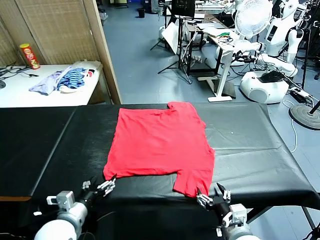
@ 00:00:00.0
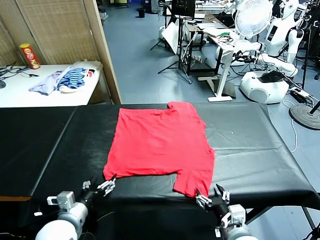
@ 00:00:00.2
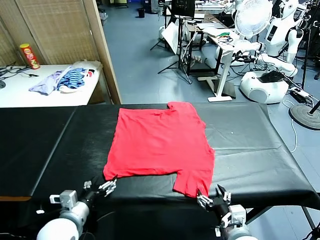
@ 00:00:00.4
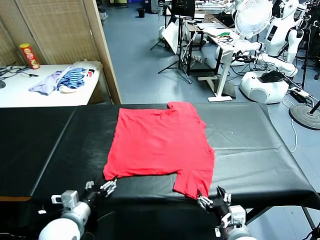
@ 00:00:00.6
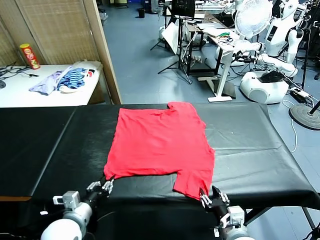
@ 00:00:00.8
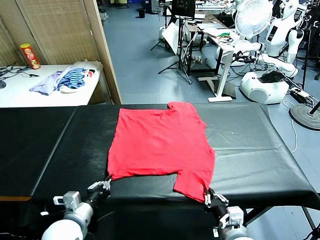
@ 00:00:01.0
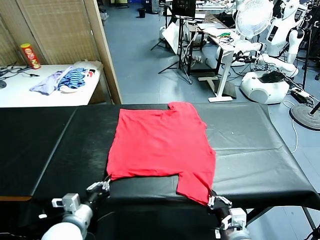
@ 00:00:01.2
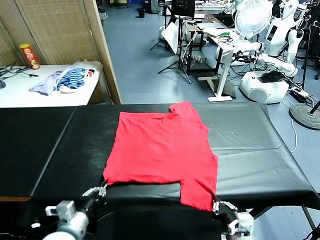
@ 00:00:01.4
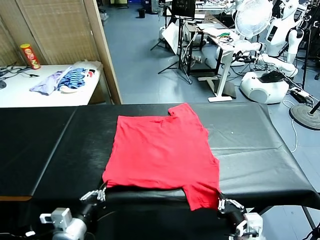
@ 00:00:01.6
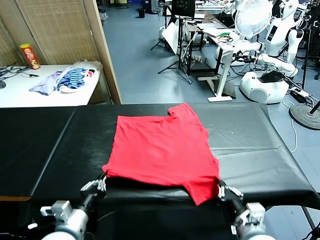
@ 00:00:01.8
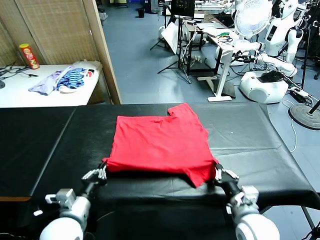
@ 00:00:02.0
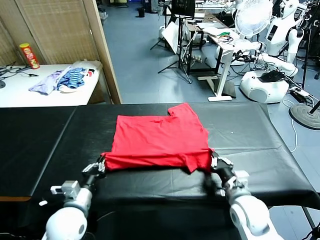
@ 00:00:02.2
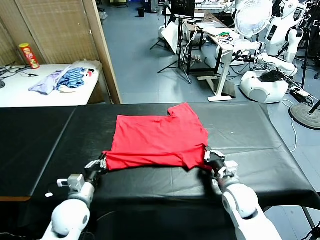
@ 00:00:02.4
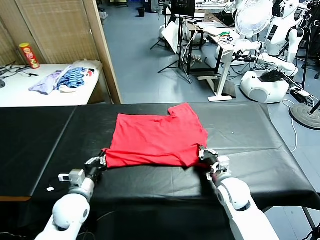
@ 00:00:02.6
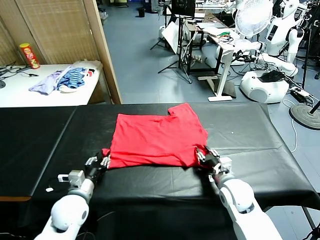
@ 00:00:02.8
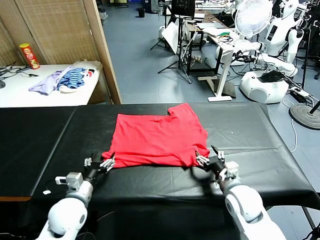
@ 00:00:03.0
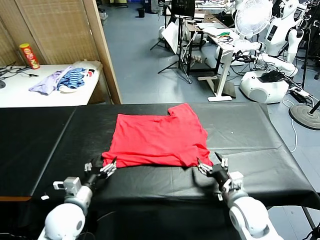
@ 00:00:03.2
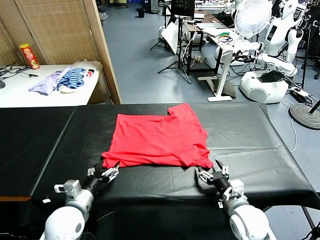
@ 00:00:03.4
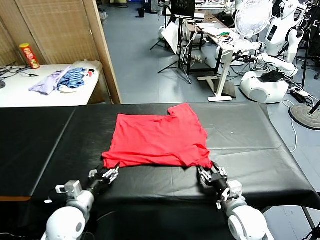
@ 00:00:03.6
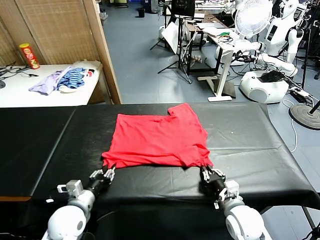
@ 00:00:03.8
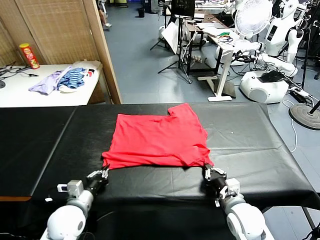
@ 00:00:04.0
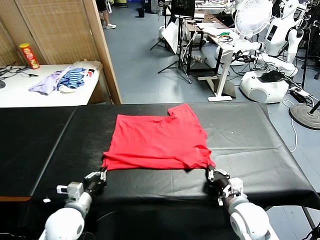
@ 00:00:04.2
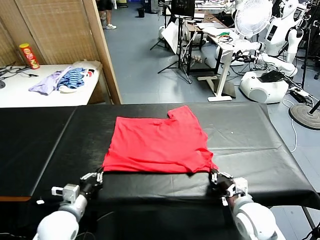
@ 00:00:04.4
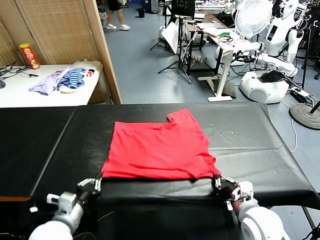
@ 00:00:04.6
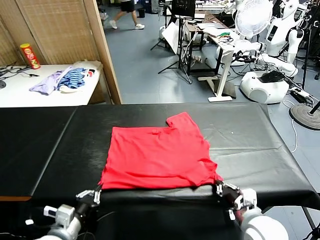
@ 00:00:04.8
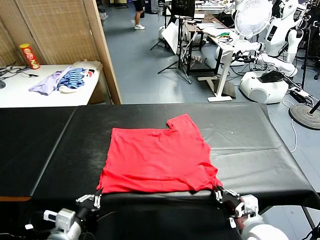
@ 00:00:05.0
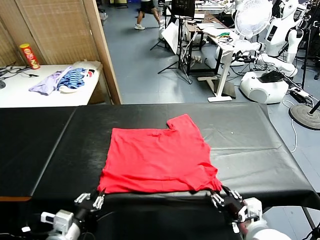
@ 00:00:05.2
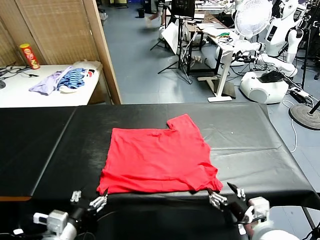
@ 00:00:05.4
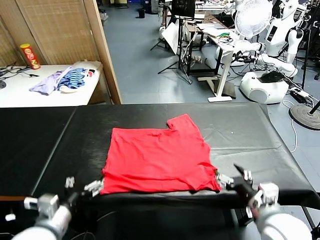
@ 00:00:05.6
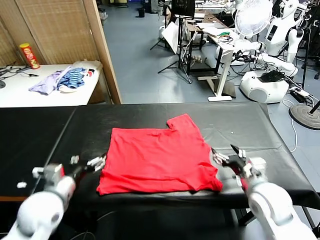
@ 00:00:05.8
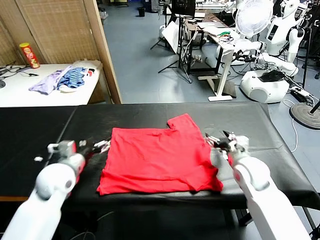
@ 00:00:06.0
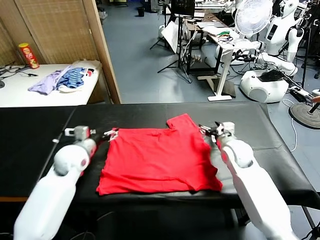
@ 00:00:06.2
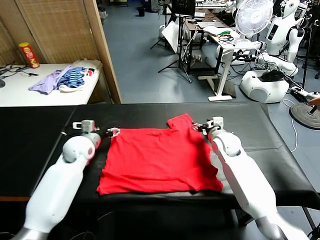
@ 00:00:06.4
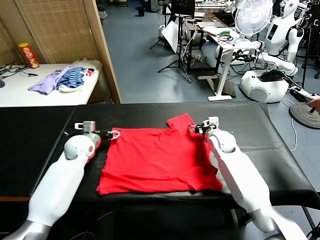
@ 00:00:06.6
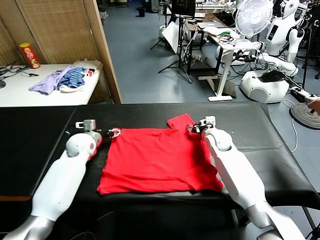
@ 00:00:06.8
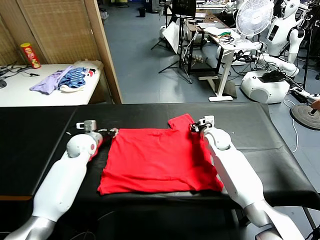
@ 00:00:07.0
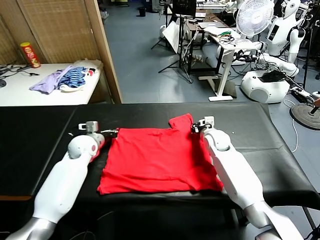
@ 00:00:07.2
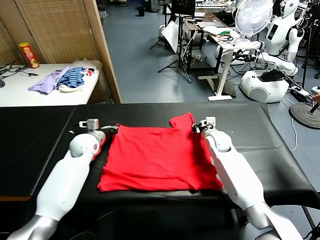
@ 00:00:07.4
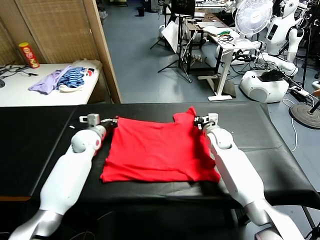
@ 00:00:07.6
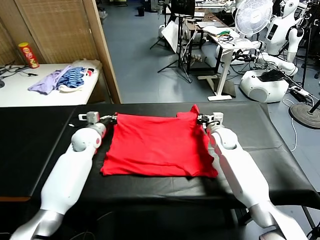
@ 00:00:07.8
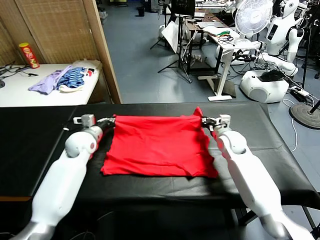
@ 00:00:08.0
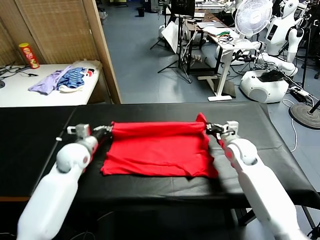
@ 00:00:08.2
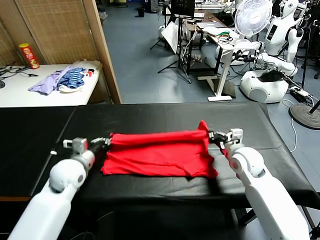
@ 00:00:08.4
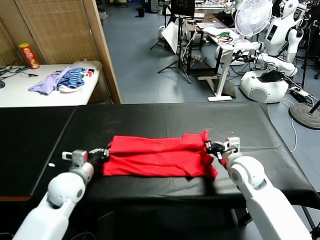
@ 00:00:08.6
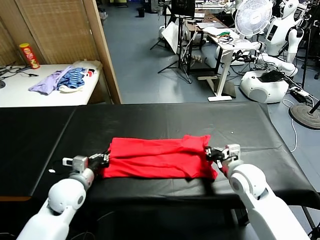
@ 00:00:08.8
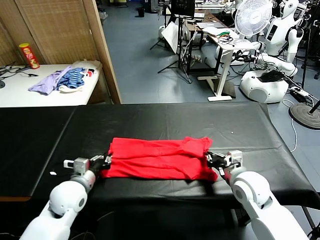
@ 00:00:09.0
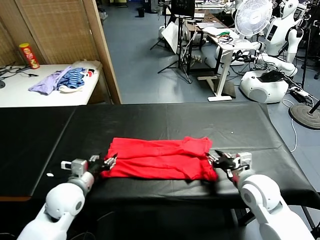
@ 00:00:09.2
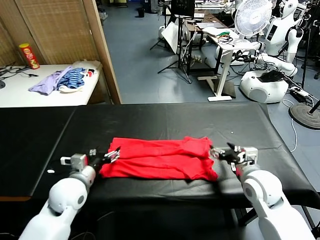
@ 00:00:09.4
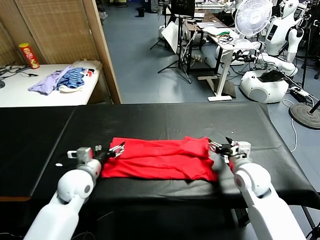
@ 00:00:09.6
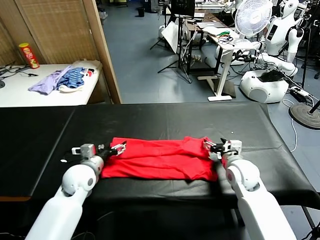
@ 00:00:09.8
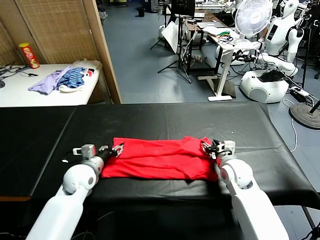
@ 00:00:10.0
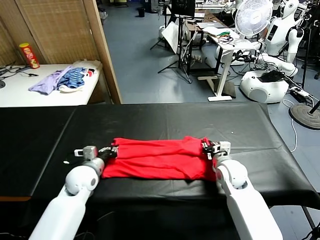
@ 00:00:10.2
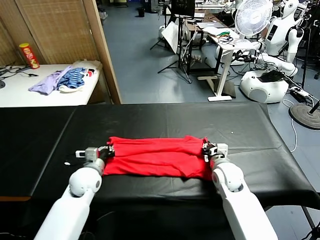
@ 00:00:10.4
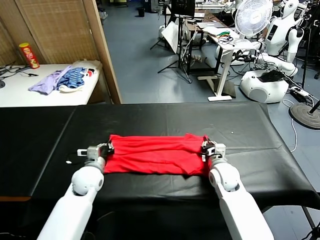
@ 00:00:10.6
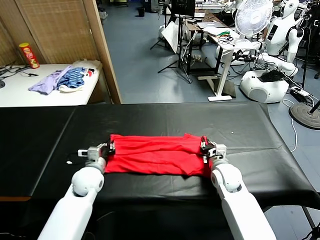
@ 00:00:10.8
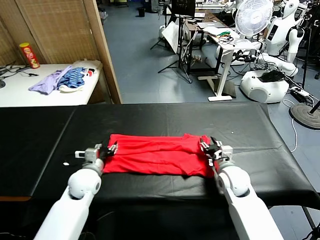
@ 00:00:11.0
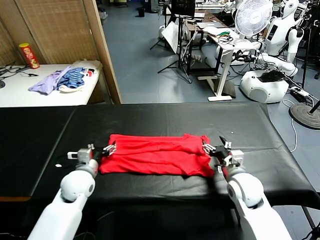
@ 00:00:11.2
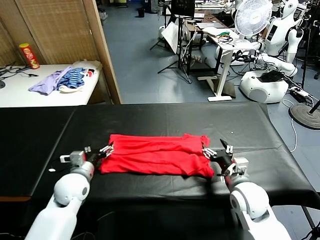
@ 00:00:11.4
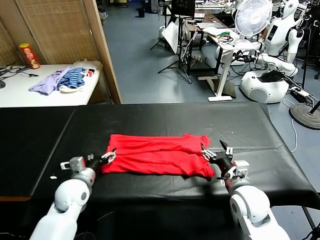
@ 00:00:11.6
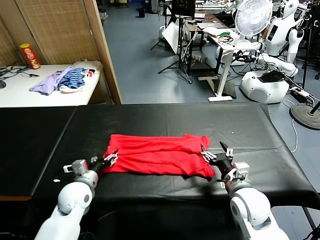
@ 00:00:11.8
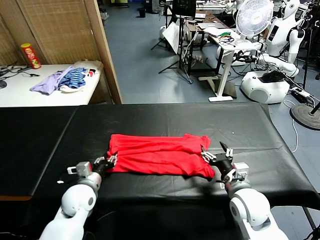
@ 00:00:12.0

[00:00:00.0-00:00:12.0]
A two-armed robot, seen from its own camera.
Task of the whole recording: fold and organize the clothes.
Step, 00:00:00.0 to 00:00:01.2: use both grippers simultaneously to clamp the lower edge of the clothing fabric.
Step, 00:00:01.4 to 00:00:02.8: use both grippers to drag the lower edge of the fabric forward and fold it over the upper edge.
Step, 00:00:03.0 to 00:00:05.2: Drag the clothes downward with both gripper.
Step, 00:00:05.6 to 00:00:07.0: use both grippers simultaneously to clamp the upper edge of the clothing fabric.
Step, 00:00:07.2 to 00:00:09.2: use both grippers to drag the upper edge of the fabric backward and fold it over the lower edge.
00:00:01.6 to 00:00:03.0: The right gripper moves forward, approximately 5 cm, and opens. Meanwhile the left gripper goes about 10 cm forward, and opens up.
00:00:03.0 to 00:00:04.4: The left gripper closes up. The right gripper closes its fingers.
00:00:04.4 to 00:00:06.0: The right gripper shifts approximately 25 cm forward, and opens up. Meanwhile the left gripper moves forward and upward, approximately 15 cm, and opens up.
00:00:06.0 to 00:00:07.6: The left gripper shifts about 15 cm forward, and closes its fingers. Meanwhile the right gripper moves forward, about 5 cm, and closes up.
00:00:07.6 to 00:00:09.0: The two grippers go some 20 cm backward. The right gripper opens up; the left gripper opens its fingers.
00:00:09.0 to 00:00:10.4: The left gripper heads forward, covering some 5 cm, and closes up. The right gripper travels forward, downward and to the left by roughly 15 cm, and closes up.
00:00:10.4 to 00:00:12.0: The right gripper shifts some 15 cm backward and upward, and opens up, while the left gripper is displaced backward by about 5 cm, and opens, then closes again.

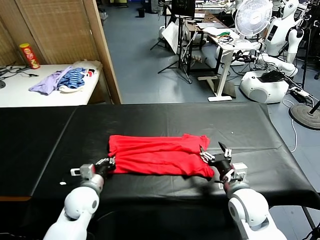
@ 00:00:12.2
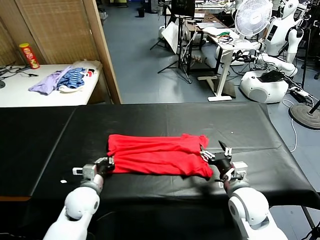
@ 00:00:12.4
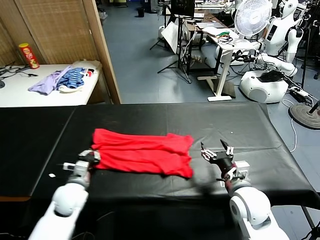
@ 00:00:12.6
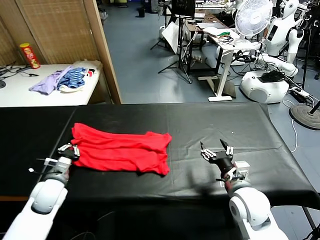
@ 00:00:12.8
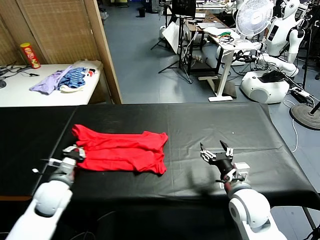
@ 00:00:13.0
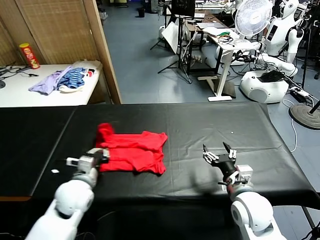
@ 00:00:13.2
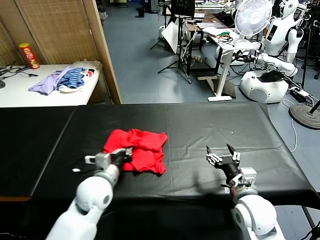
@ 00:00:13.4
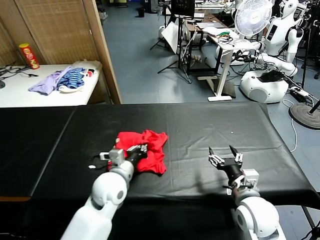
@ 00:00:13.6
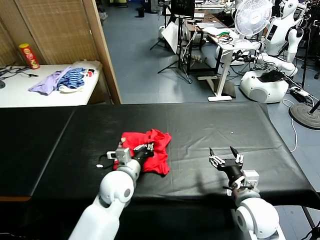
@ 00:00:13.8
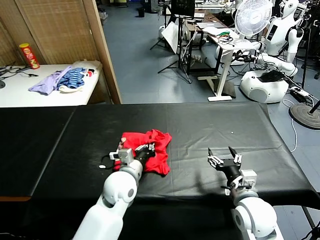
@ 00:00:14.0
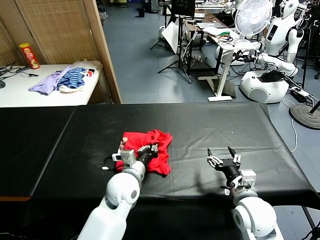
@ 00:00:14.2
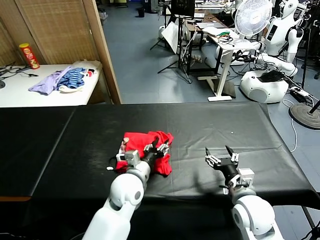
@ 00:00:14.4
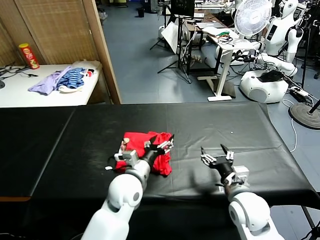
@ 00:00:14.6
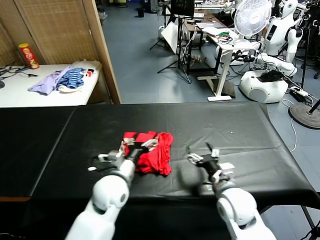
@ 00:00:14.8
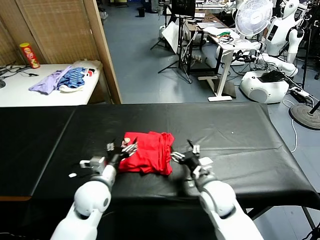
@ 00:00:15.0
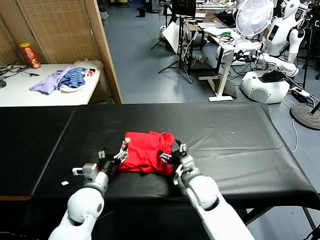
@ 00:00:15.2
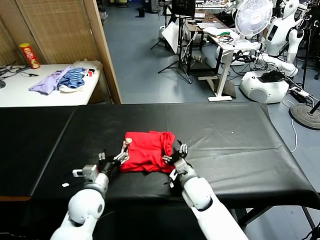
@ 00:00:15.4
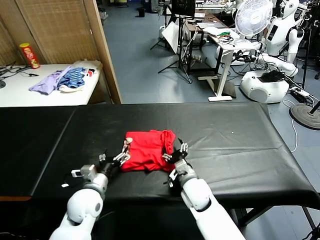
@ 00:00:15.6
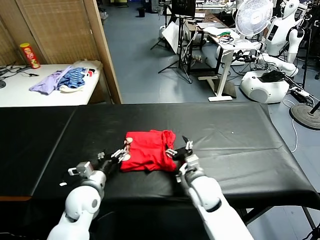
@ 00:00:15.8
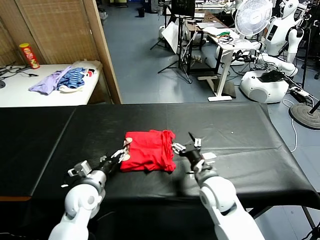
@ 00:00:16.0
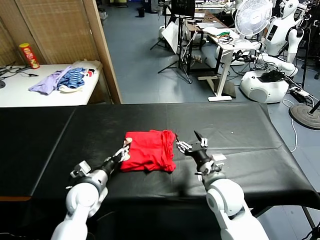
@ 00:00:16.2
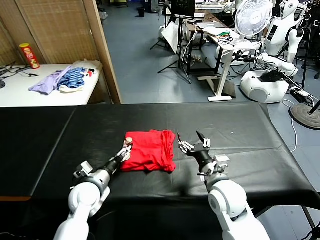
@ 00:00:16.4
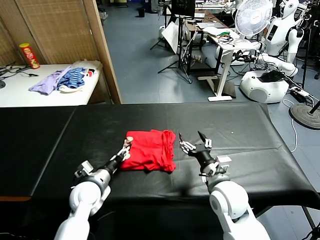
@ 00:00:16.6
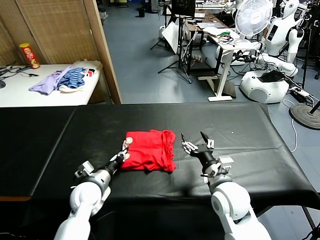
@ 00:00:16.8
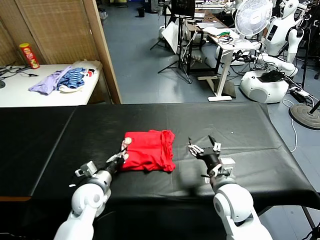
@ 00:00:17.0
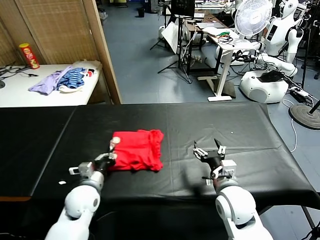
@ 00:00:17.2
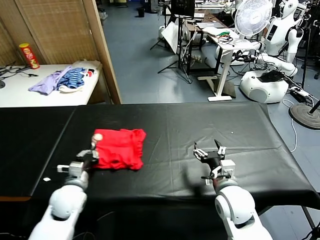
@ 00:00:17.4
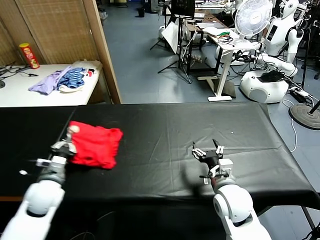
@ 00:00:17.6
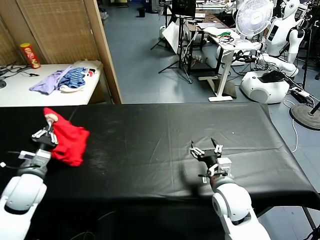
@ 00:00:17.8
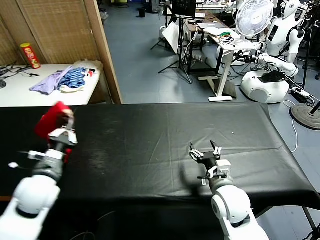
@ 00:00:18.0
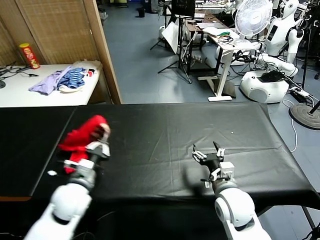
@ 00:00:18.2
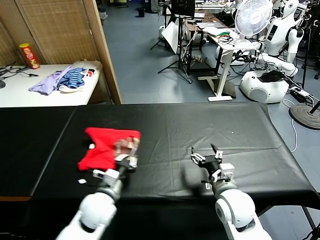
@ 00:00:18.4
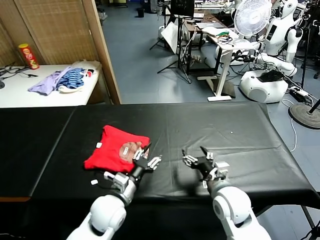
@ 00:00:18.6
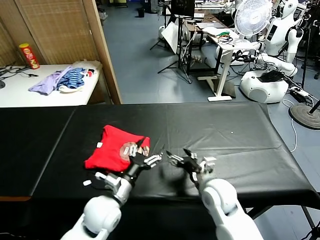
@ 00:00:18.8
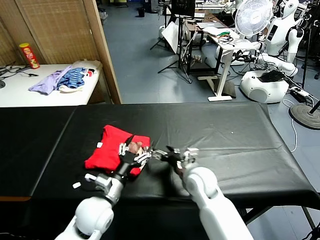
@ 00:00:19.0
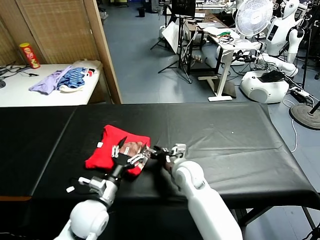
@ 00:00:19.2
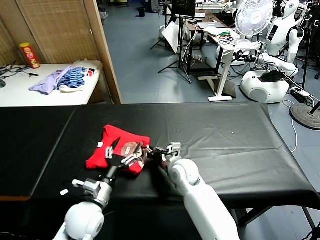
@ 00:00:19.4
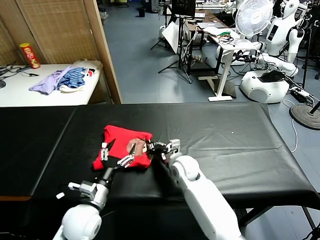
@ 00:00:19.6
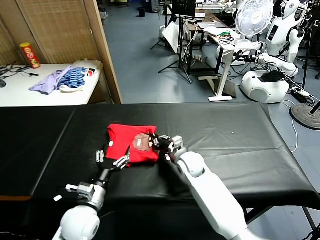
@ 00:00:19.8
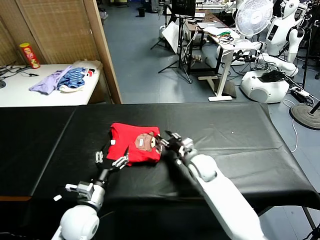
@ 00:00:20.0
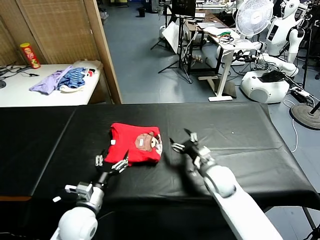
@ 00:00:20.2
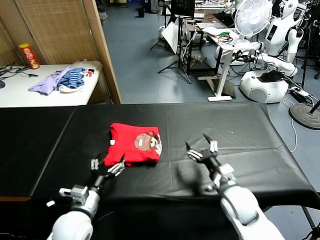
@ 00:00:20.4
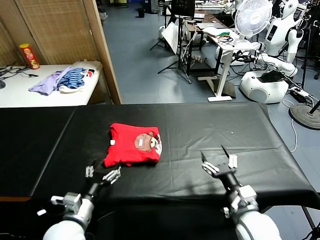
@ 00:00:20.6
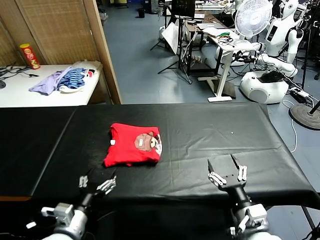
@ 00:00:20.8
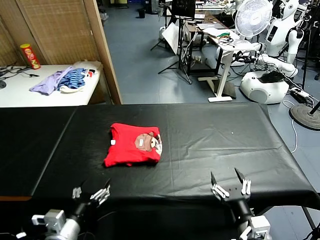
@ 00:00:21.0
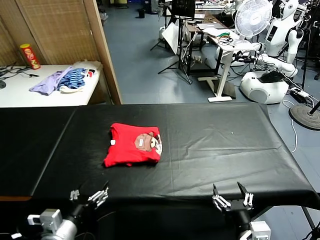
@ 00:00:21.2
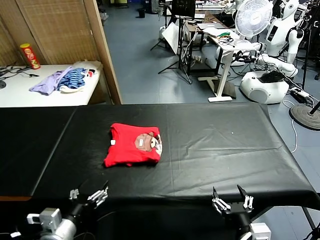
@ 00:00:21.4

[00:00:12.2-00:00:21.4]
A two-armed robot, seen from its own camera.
Task of the whole recording: fold and organize the clothes.
Step, 00:00:12.4 to 00:00:14.6: use the left gripper to drag the left edge of the fabric to the left and folds it over the right edge.
Step, 00:00:14.8 to 00:00:18.4: Flip the folded clothes over with left gripper.
Step, 00:00:18.6 to 00:00:20.0: Drag the clothes to the center of the table.
00:00:12.2 to 00:00:13.8: The left gripper shifts some 15 cm to the right and upward.
00:00:13.8 to 00:00:15.2: The left gripper shifts about 10 cm to the left, and opens up; the right gripper goes roughly 15 cm to the left, forward and downward.
00:00:15.2 to 00:00:16.8: The right gripper heads upward, to the right and backward, covering roughly 10 cm. The left gripper closes.
00:00:16.8 to 00:00:18.4: The left gripper moves approximately 15 cm to the left and comes back.
00:00:18.4 to 00:00:19.8: The right gripper shifts approximately 20 cm forward and to the left, and closes, while the left gripper opens its fingers.
00:00:19.8 to 00:00:21.4: The left gripper shifts roughly 10 cm backward and upward, while the right gripper moves backward, some 35 cm, and opens up.
